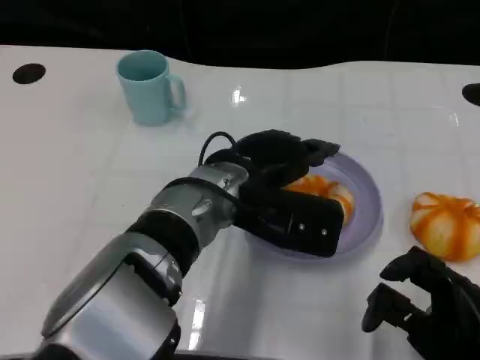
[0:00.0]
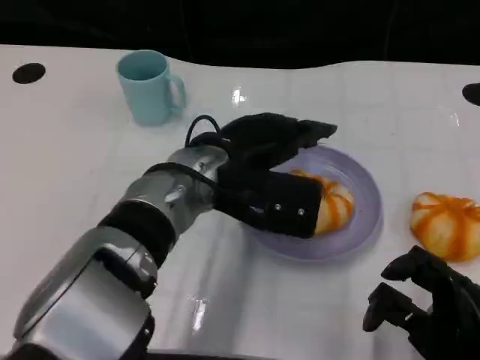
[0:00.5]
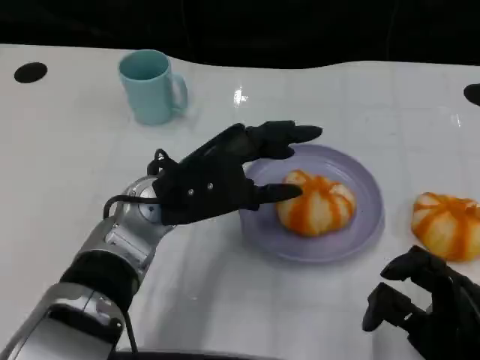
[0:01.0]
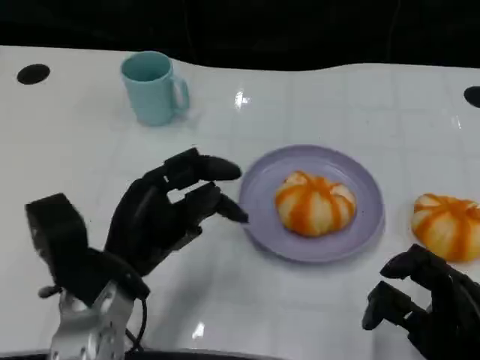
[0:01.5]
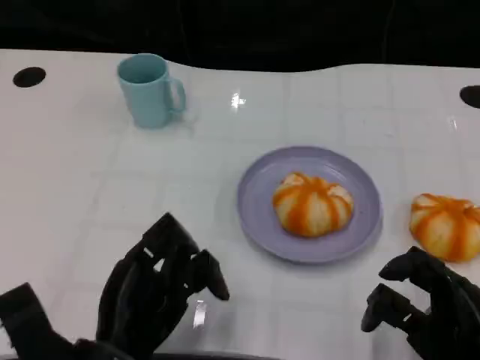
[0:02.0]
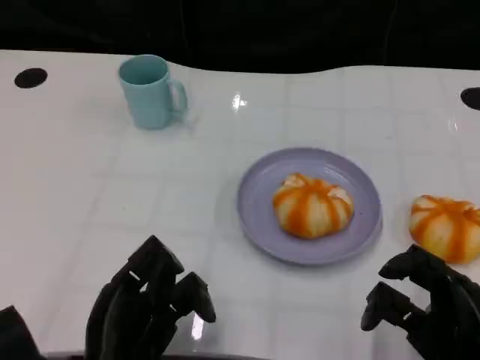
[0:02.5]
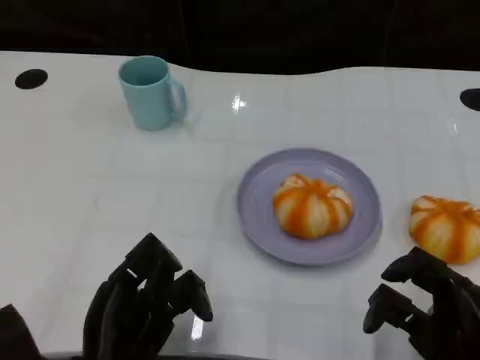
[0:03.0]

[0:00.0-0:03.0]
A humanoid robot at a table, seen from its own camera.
Task of the whole recording: Grasp the bread from the table and place it into the plate.
0:00.0 to 0:01.5: The left hand moves to the left and backward, roughly 15 cm.
0:01.5 to 0:03.0: The left hand goes roughly 10 cm backward.

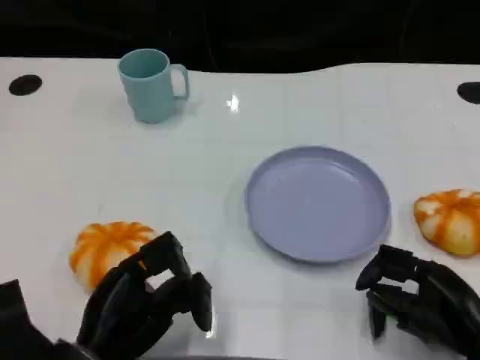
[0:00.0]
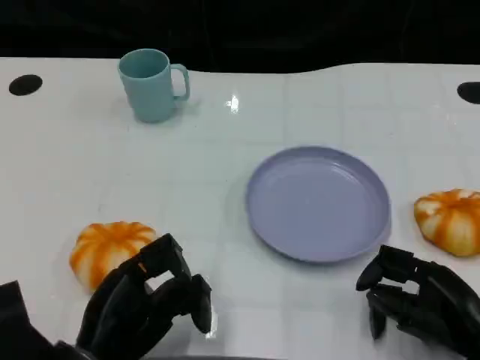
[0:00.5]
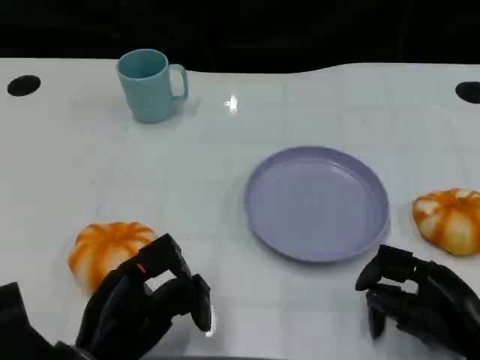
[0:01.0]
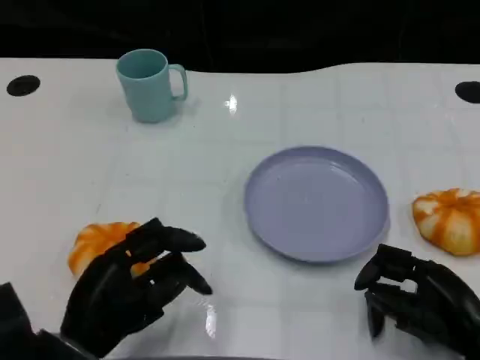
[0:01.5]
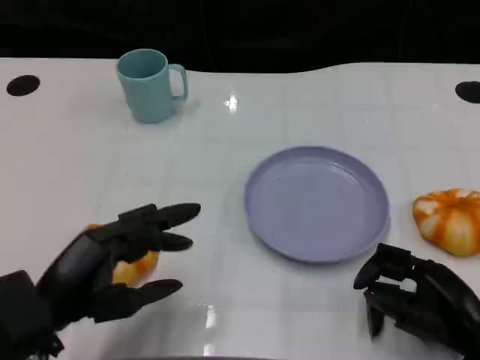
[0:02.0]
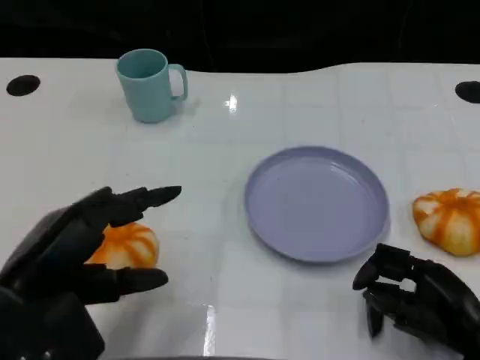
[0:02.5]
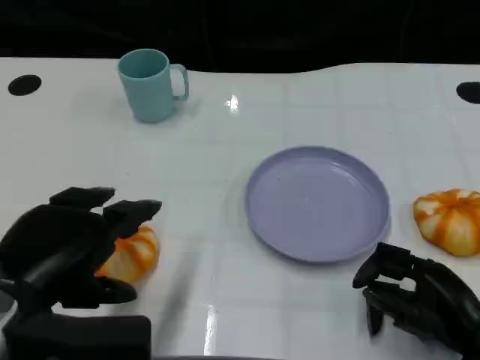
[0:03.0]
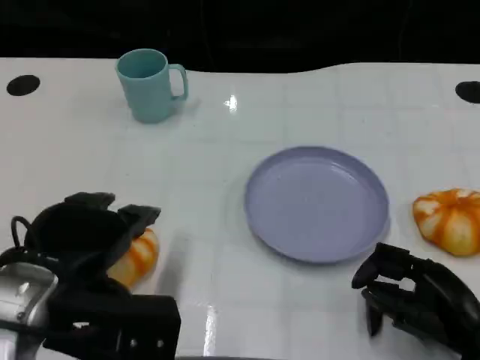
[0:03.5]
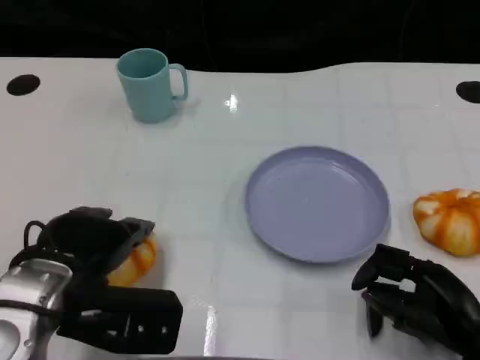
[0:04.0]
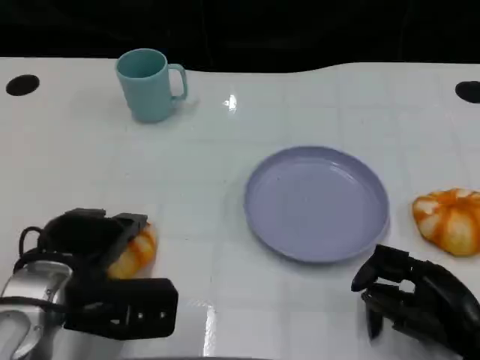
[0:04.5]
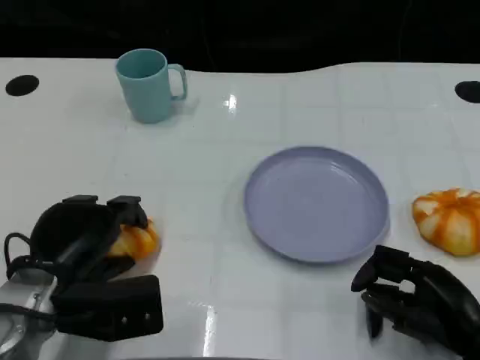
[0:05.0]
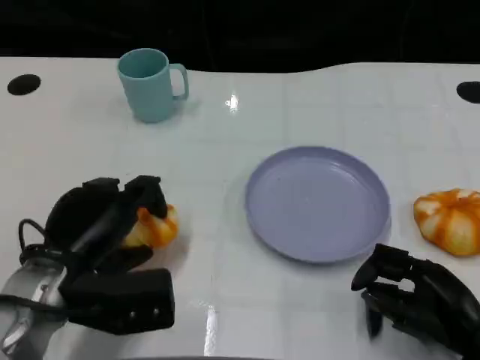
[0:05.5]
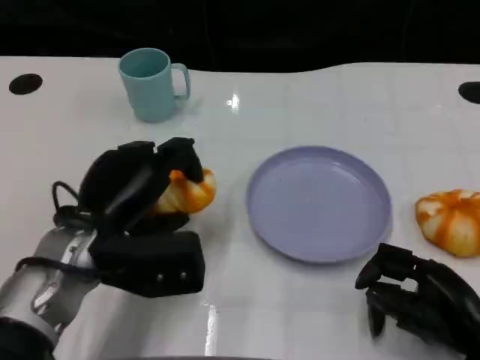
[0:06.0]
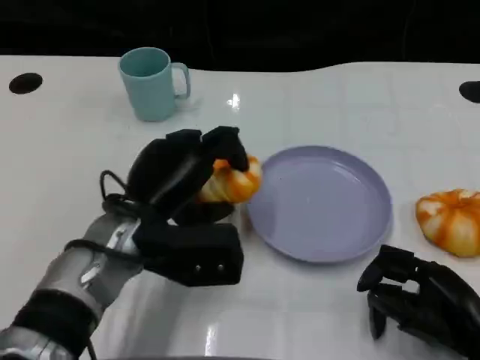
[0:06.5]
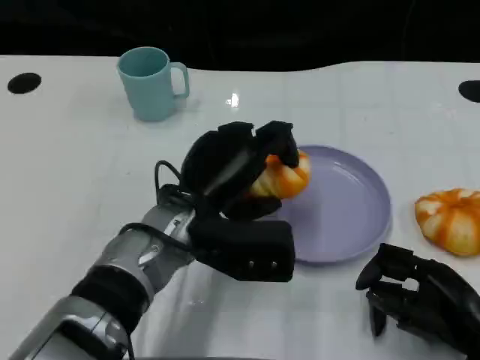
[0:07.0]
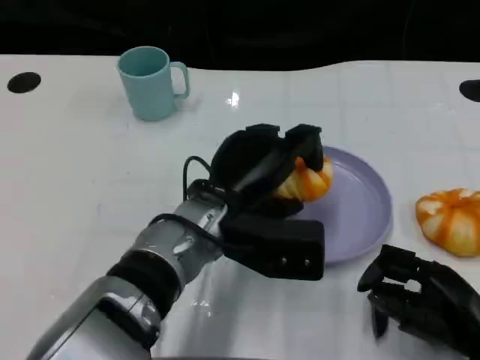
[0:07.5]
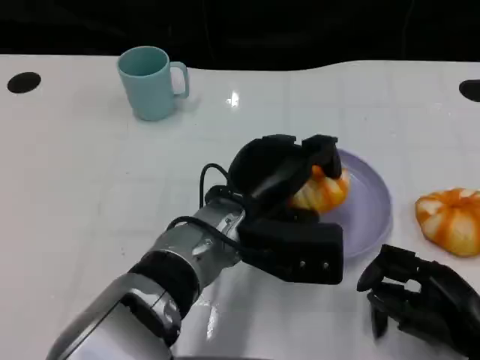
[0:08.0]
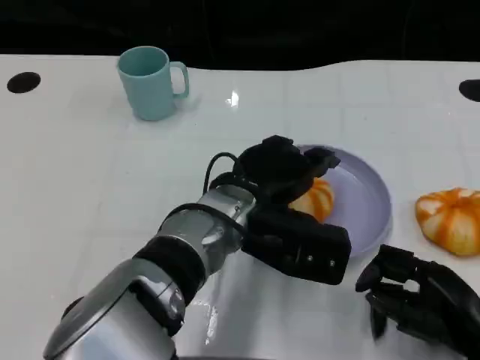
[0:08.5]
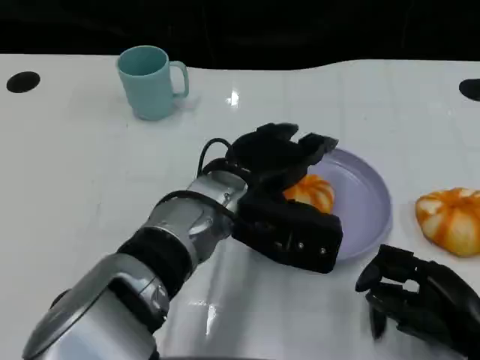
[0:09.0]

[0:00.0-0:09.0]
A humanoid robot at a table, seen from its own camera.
Task of the whole recording: Grasp the bread from the table and place it into the plate.
0:00.0 to 0:02.0: The left hand travels upward by about 5 cm.
0:02.0 to 0:04.5: The left hand travels forward by roughly 5 cm.
0:04.5 to 0:07.0: The left hand shifts approximately 15 cm to the right.

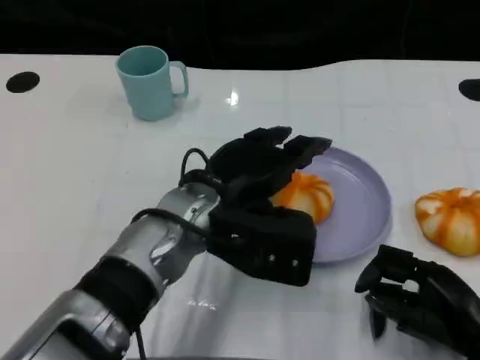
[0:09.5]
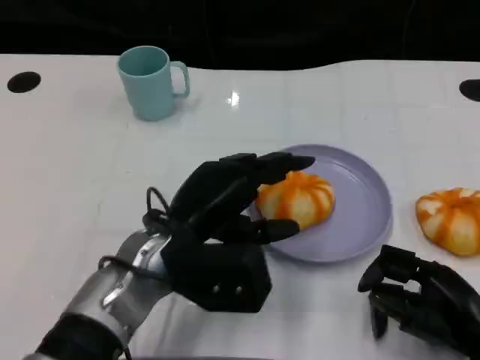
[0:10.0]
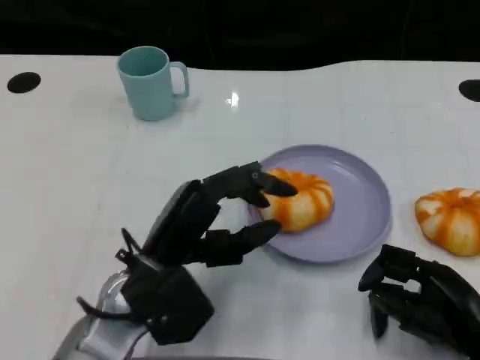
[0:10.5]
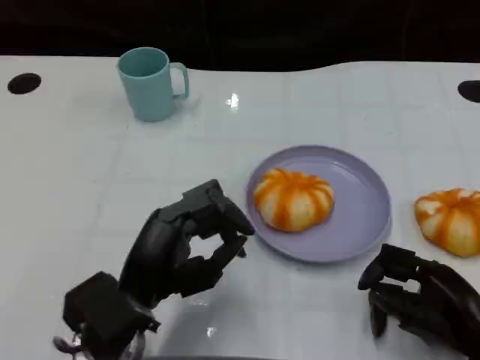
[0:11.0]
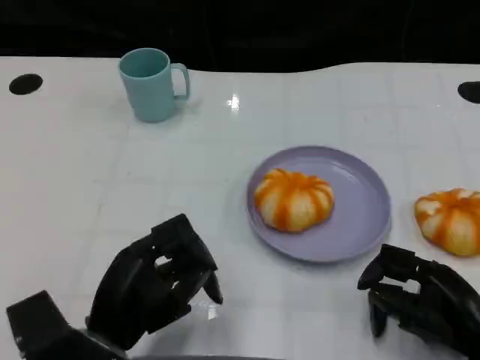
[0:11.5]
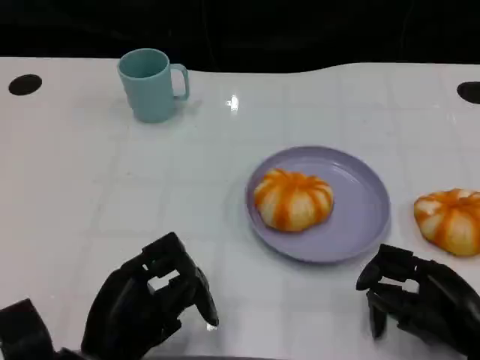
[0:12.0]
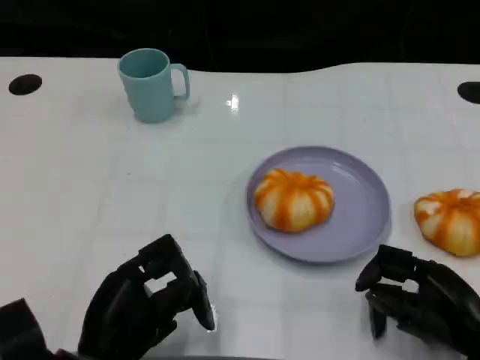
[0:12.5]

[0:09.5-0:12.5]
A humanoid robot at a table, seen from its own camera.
Task of the whole recording: Grasp the bread from the table and place it into the plate.
0:09.5 to 0:11.0: The left hand shifts approximately 15 cm to the left, backward and downward.
0:11.0 to 0:12.5: The left hand moves roughly 5 cm.

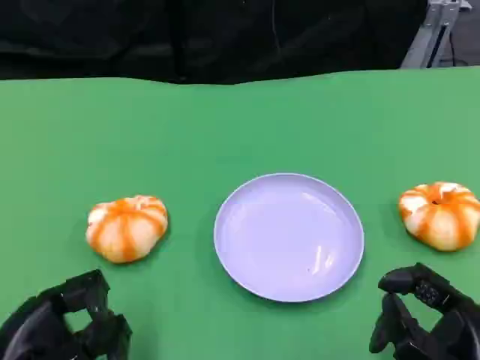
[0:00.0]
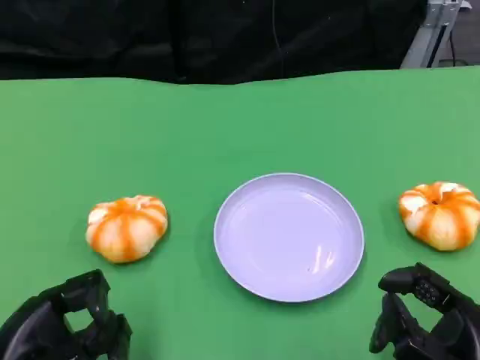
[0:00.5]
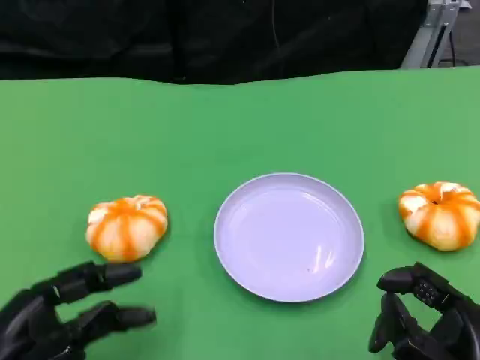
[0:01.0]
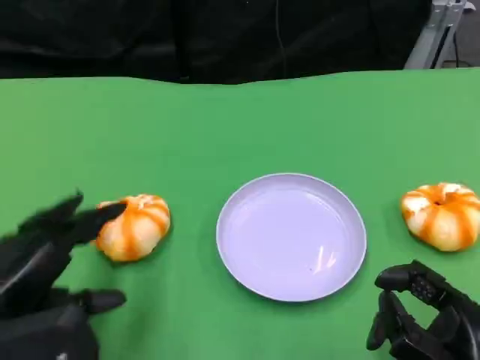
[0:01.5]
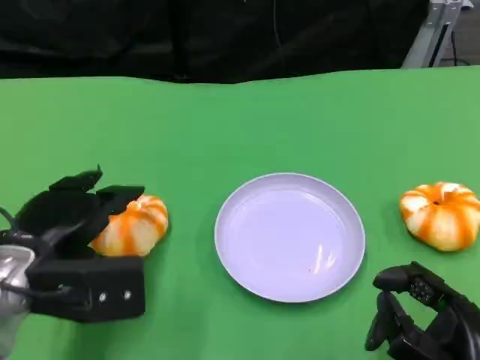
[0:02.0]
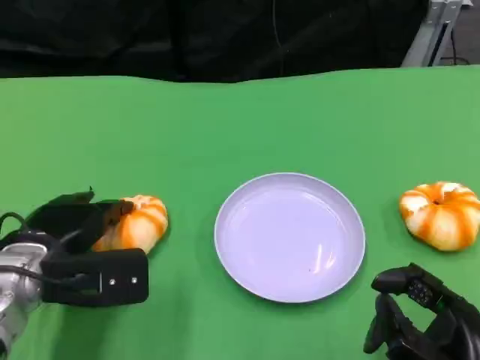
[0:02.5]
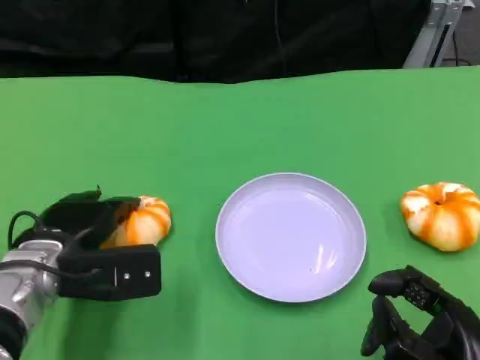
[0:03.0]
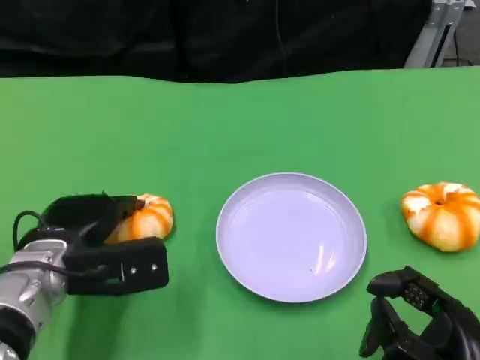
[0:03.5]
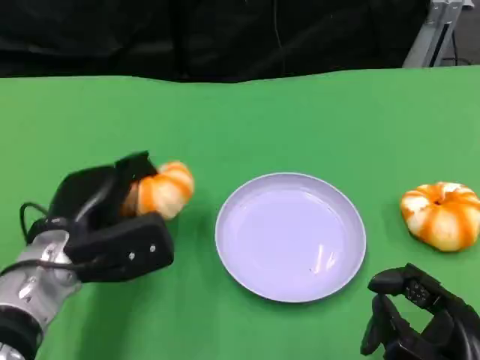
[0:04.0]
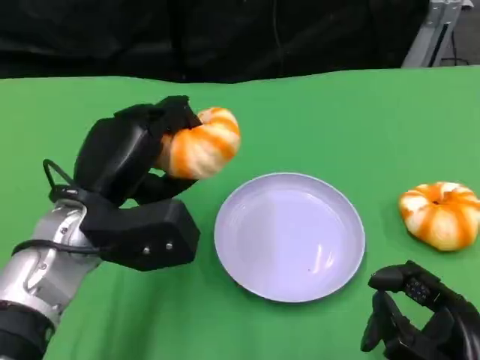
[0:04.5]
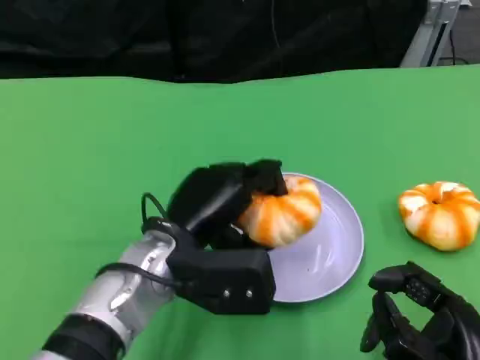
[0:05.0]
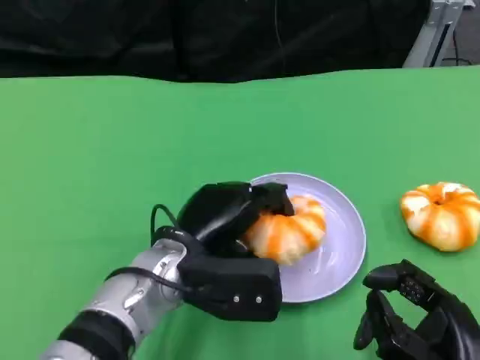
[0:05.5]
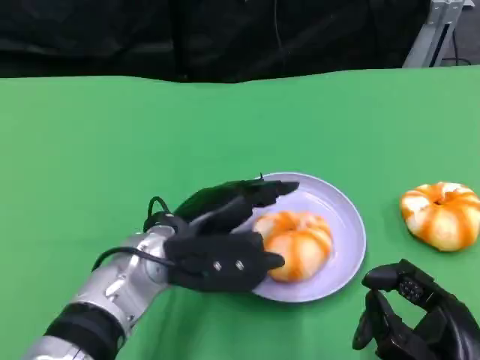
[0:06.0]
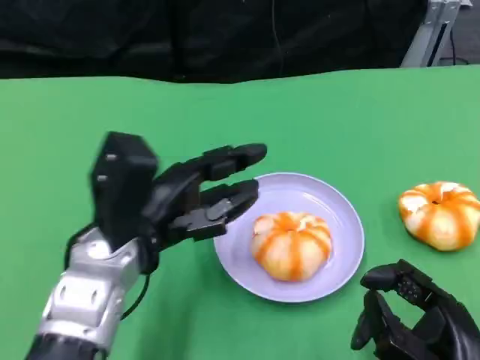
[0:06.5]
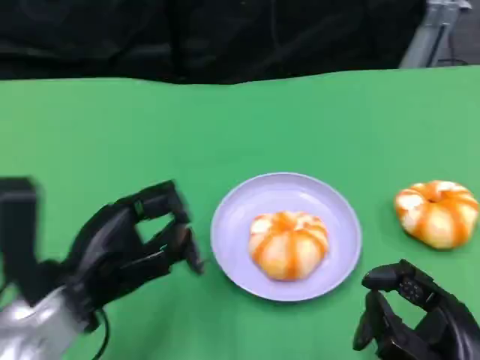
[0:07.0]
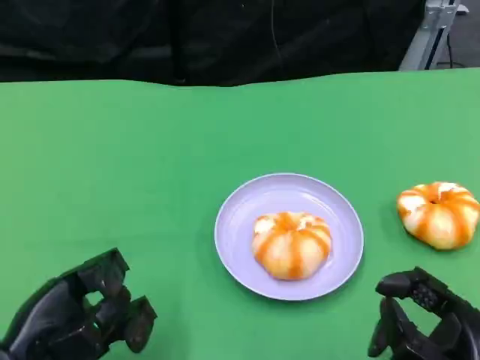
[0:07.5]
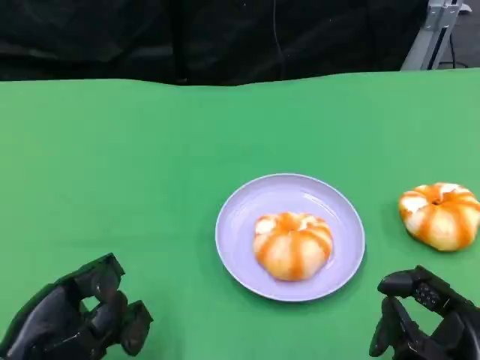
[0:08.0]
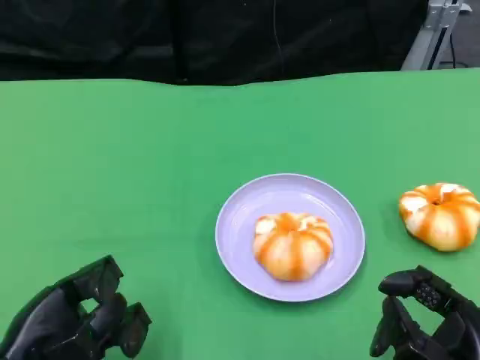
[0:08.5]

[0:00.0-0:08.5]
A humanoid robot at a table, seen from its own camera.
Task of the whole recording: Grasp the bread from the table and place it into the plate.
0:00.0 to 0:02.0: The left hand goes about 10 cm forward.
0:02.0 to 0:04.0: The left hand ends up about 5 cm from where it was.
0:06.5 to 0:08.5: The left hand is displaced to the left, backward and downward by approximately 15 cm.

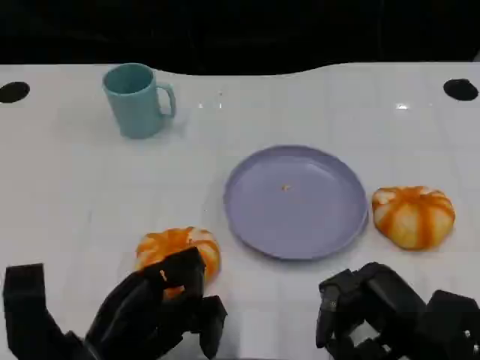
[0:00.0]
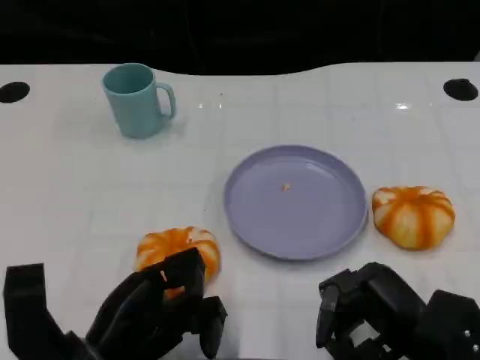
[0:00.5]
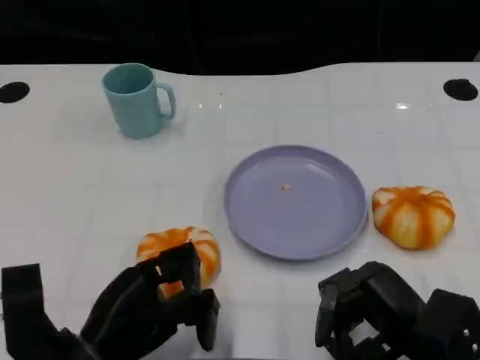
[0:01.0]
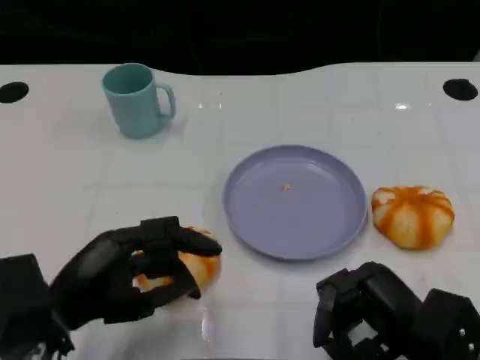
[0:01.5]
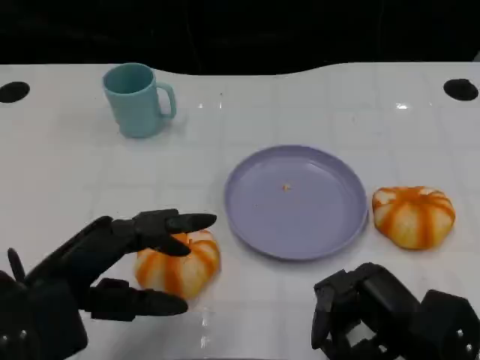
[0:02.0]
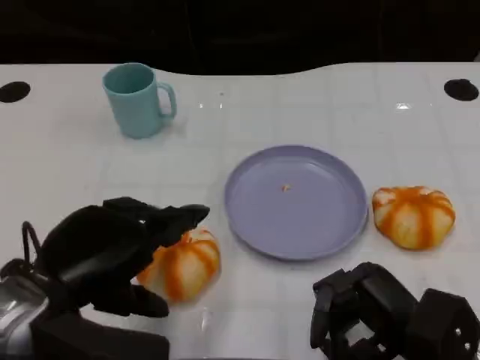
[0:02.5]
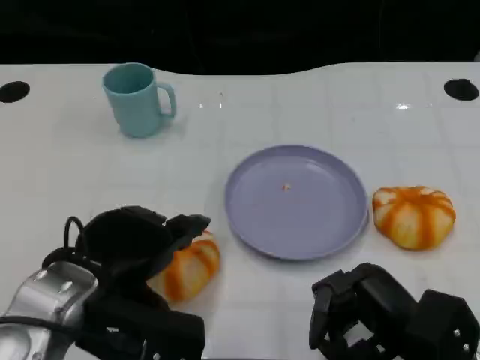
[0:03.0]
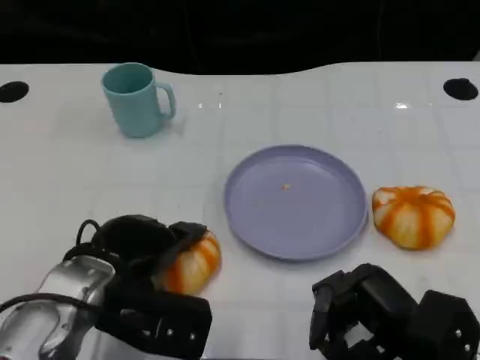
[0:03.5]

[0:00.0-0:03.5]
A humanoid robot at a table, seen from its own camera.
Task of the whole recording: Grasp the bread from the table and place it into the plate.
0:00.0 to 0:02.0: The left hand travels upward by some 10 cm.
0:02.0 to 0:03.5: The left hand is displaced to the right and forward by approximately 10 cm.
